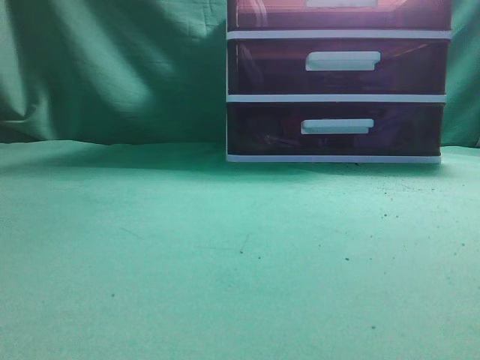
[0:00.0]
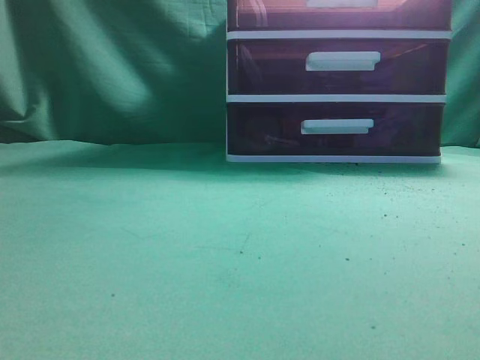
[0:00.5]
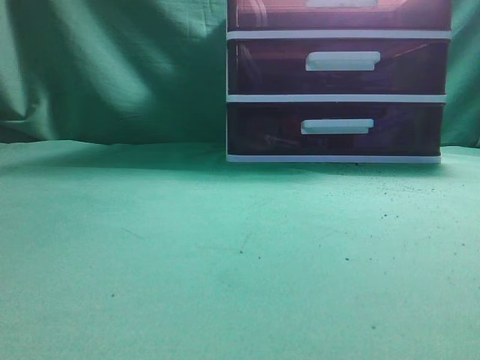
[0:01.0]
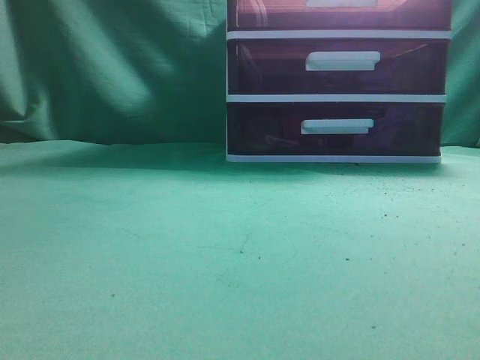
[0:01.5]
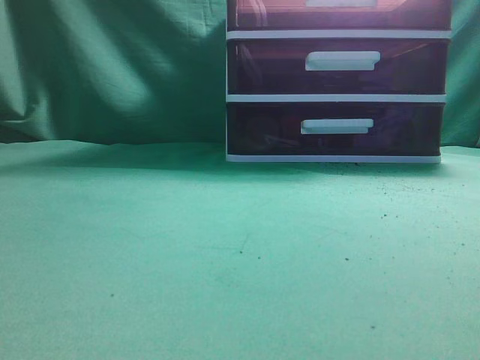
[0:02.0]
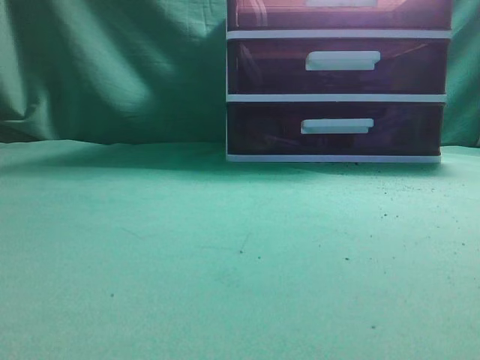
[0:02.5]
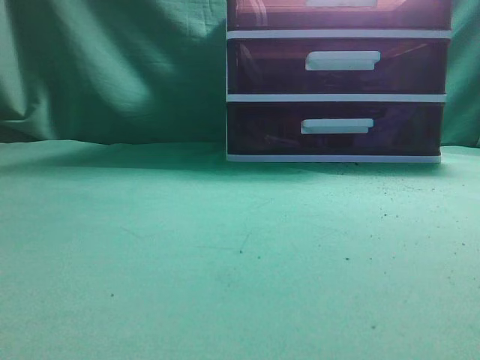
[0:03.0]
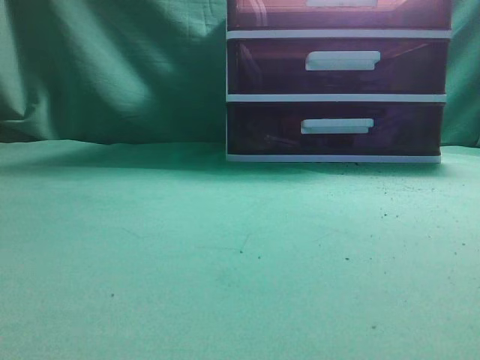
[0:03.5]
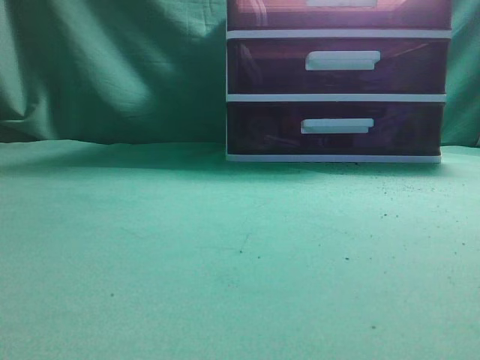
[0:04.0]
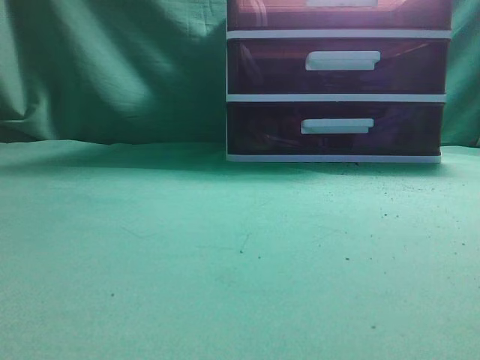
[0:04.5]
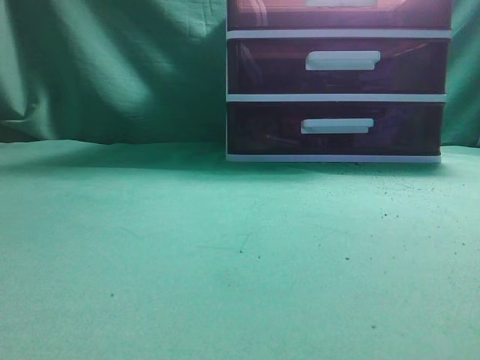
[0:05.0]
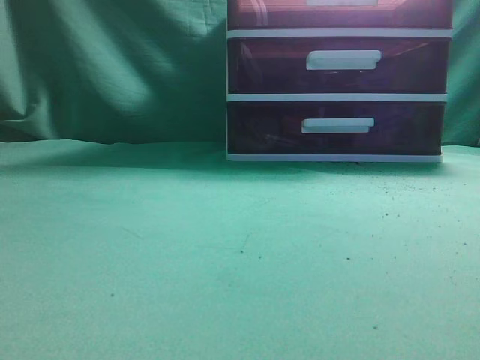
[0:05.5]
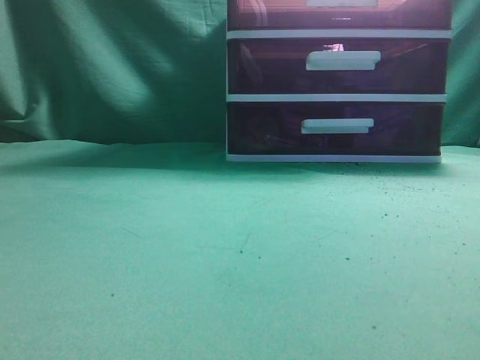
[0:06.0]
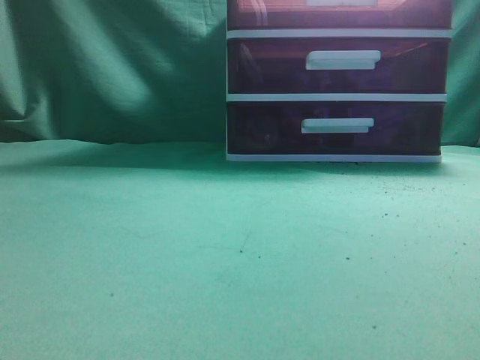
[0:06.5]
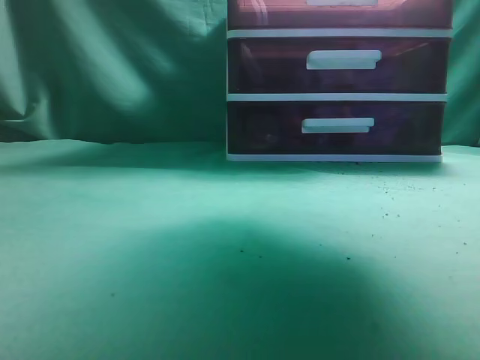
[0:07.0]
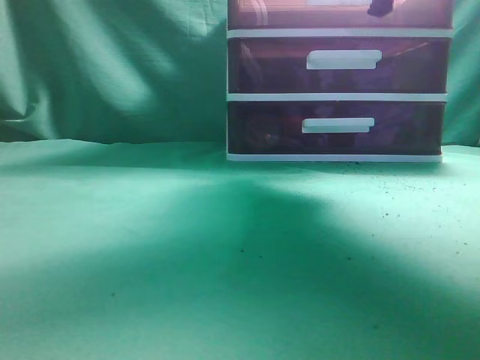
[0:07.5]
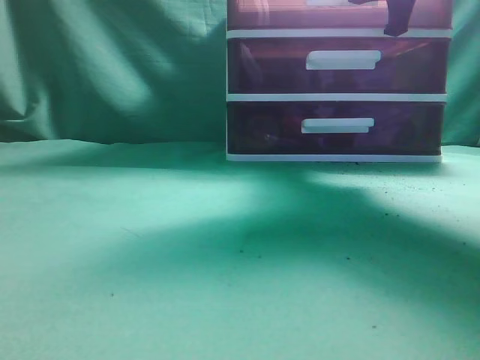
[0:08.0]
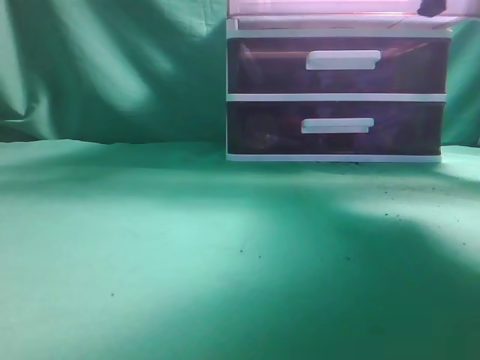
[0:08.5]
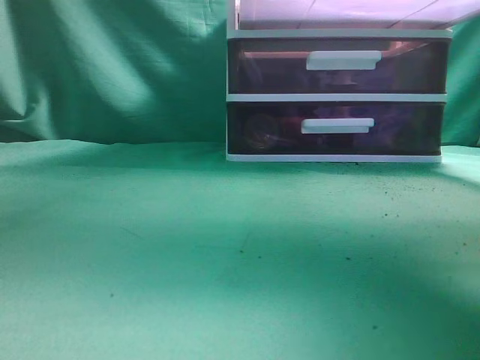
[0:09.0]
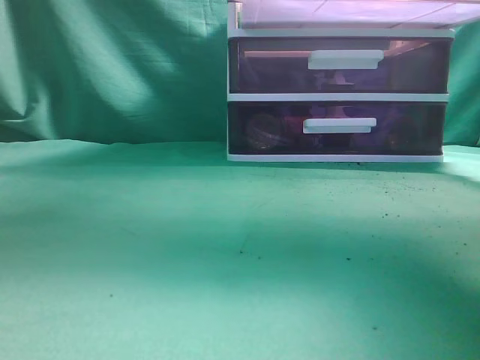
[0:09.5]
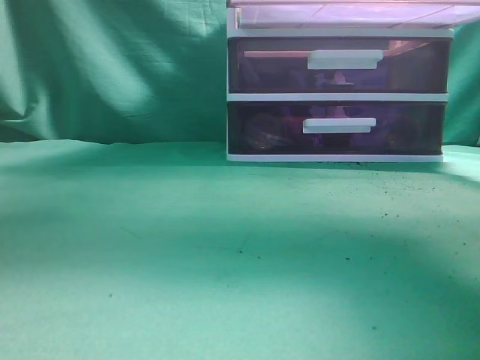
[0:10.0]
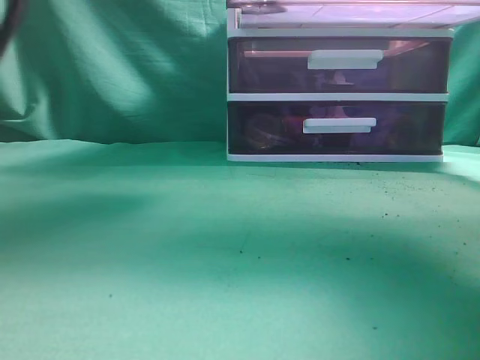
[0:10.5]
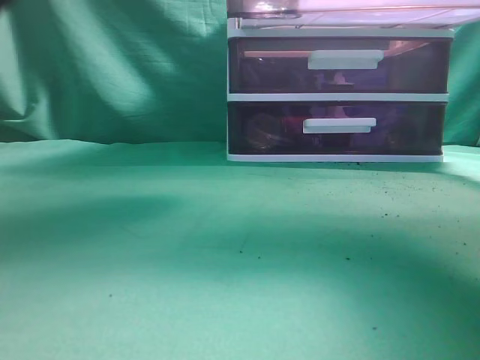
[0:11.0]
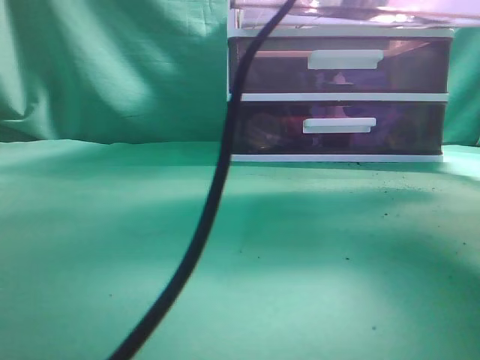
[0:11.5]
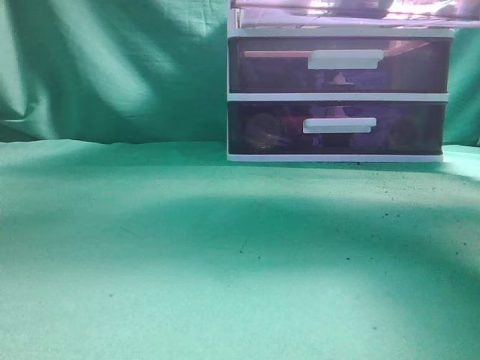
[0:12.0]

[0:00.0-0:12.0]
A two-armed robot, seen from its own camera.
Task of the whole recording: place the water bottle into the drawer.
Step, 0:00.0 to 0:09.0: Open the drawer.
Step, 0:09.5 to 0:11.5: Place the water bottle inside the drawer.
0:06.0 to 0:08.0: The right gripper heads forward, covering roughly 35 cm, and opens, then closes once more.
0:08.0 to 0:10.0: The right gripper travels backward by roughly 15 cm. The left gripper moves to the right and forward, roughly 20 cm.
0:10.0 to 0:12.0: The left gripper reaches some 10 cm to the right, then returns, and closes its fingers.

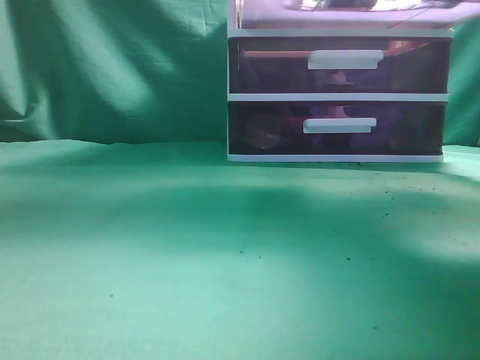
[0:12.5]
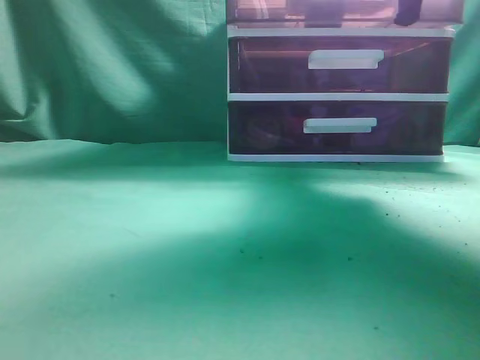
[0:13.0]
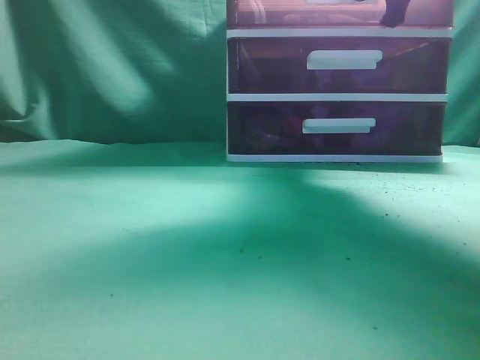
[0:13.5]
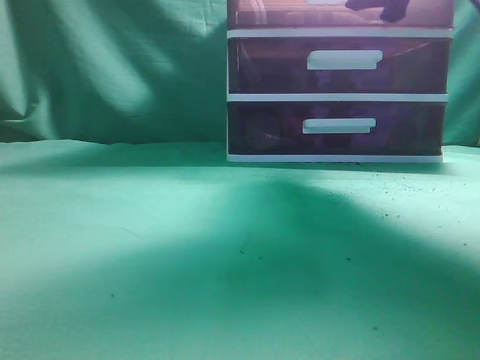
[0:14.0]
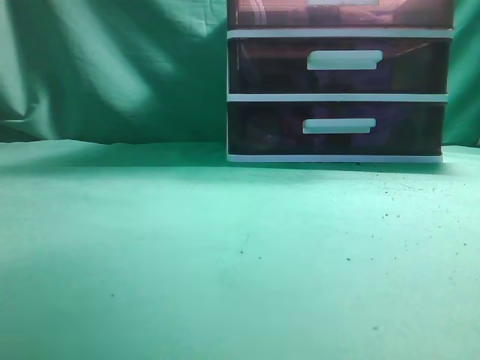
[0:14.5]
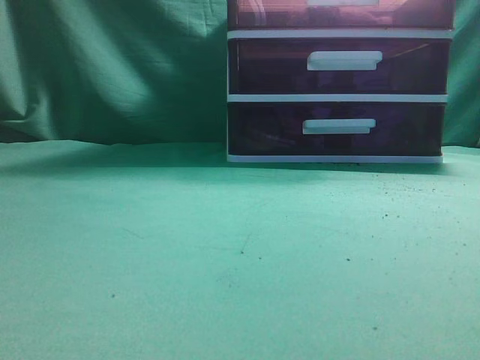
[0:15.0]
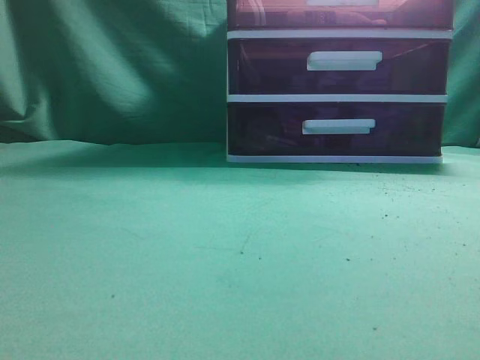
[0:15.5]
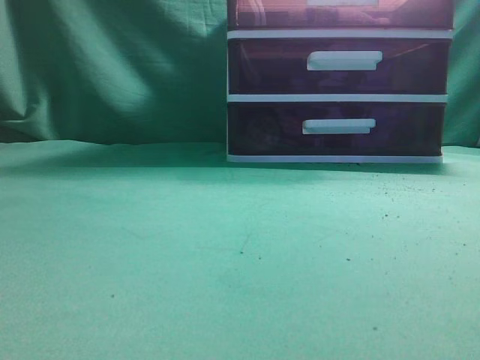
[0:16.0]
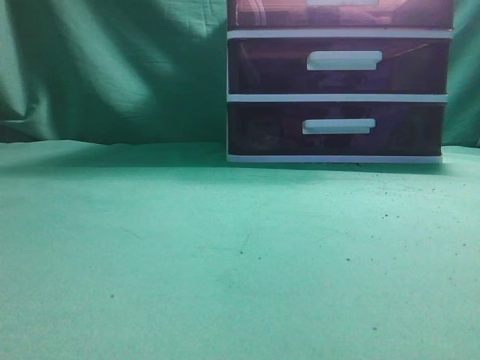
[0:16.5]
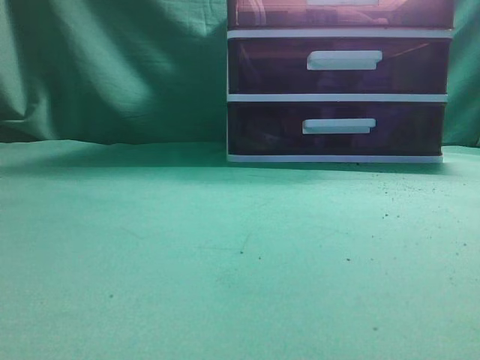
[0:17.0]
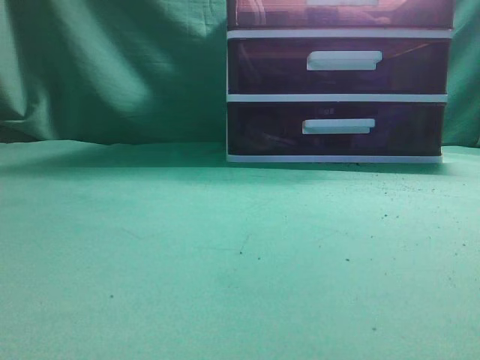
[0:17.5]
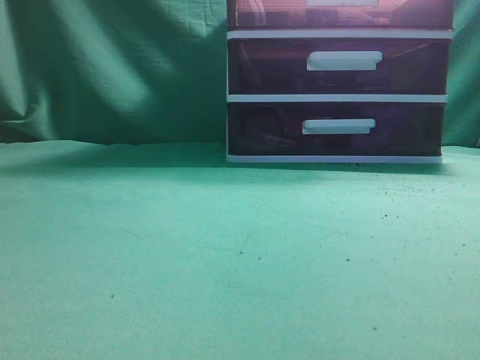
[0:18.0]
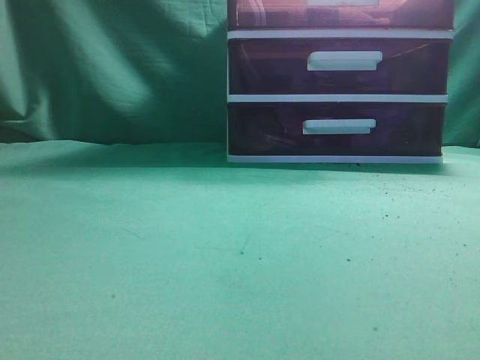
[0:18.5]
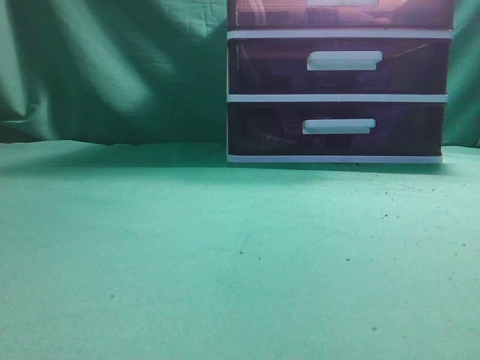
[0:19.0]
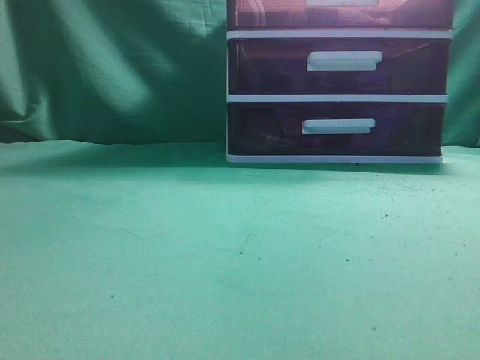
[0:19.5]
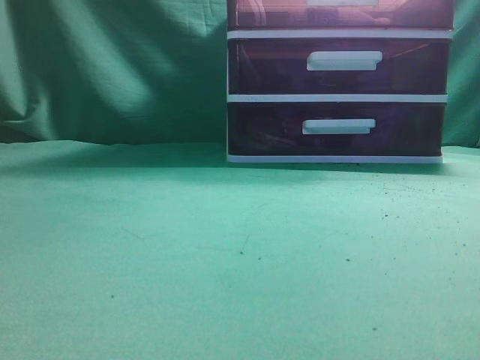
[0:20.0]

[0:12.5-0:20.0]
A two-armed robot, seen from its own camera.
Task of the whole recording: place the water bottle into the drawer.
Step, 0:12.5 to 0:14.0: Close the drawer.
0:12.5 to 0:14.5: The left gripper shifts about 15 cm backward, to the left and downward; the right gripper is displaced upward by roughly 5 cm, moves about 10 cm forward and comes back, and opens and closes again.
0:14.5 to 0:16.5: The right gripper travels backward by approximately 25 cm. The left gripper moves downward, some 15 cm.

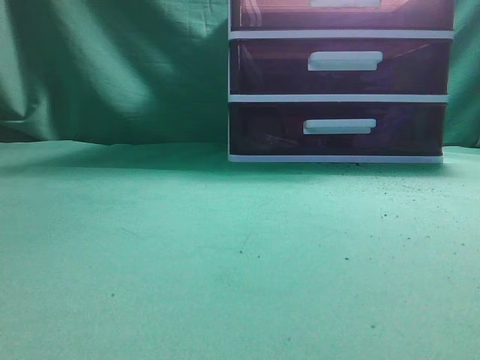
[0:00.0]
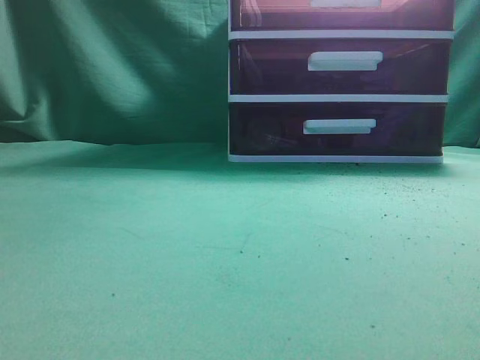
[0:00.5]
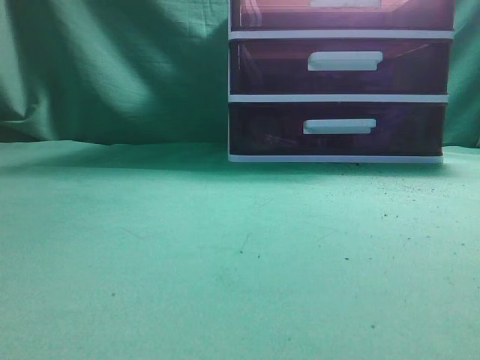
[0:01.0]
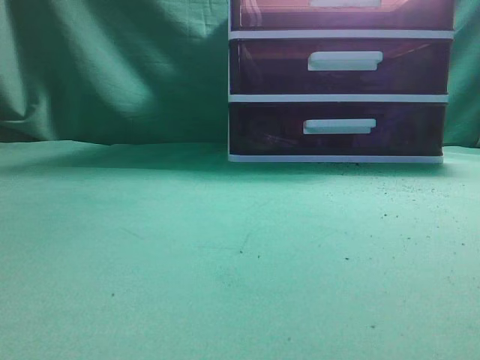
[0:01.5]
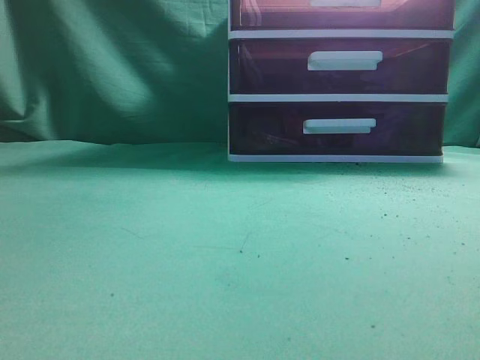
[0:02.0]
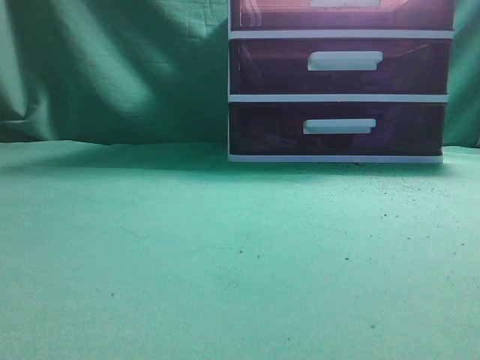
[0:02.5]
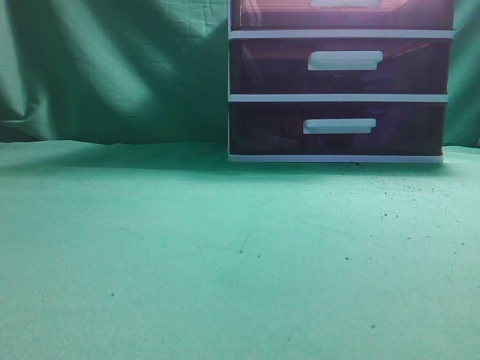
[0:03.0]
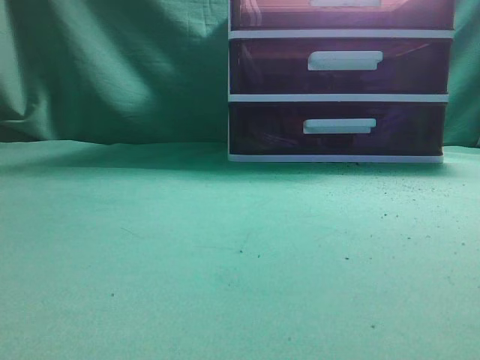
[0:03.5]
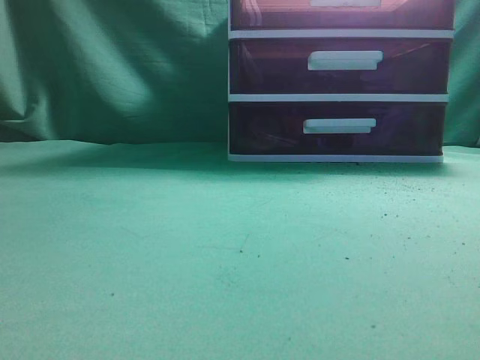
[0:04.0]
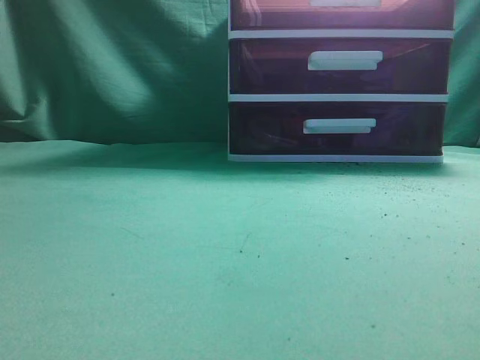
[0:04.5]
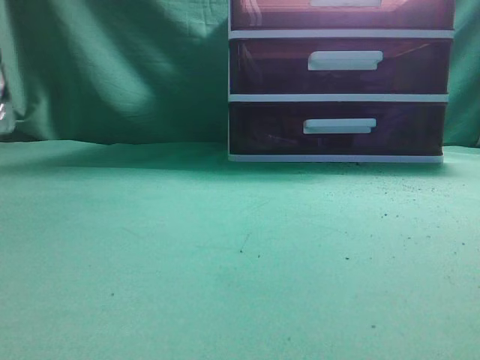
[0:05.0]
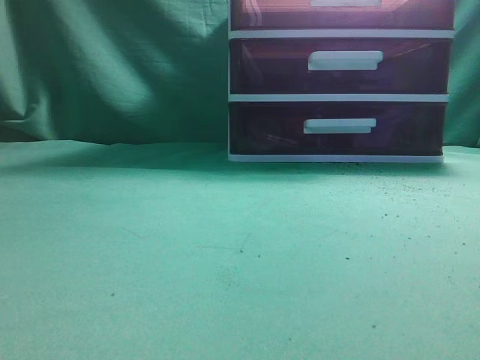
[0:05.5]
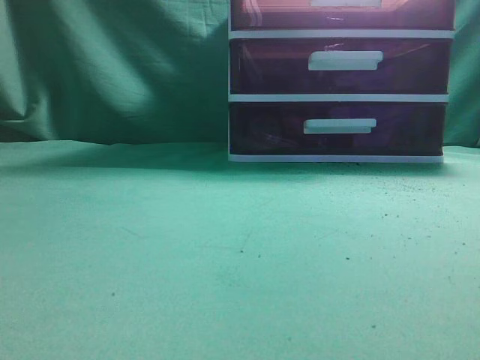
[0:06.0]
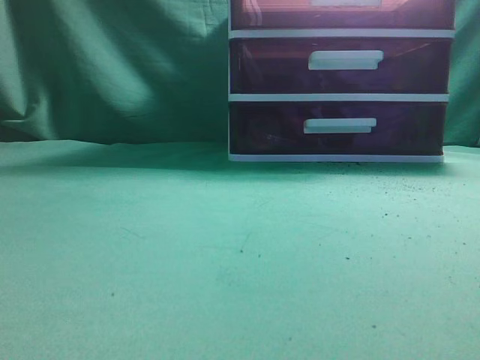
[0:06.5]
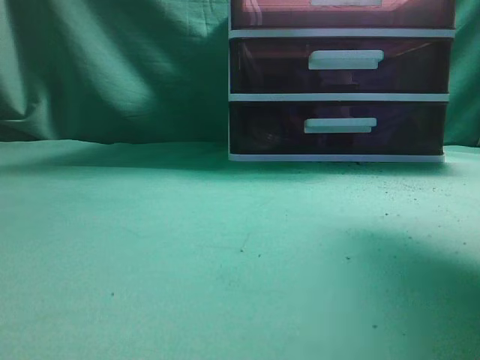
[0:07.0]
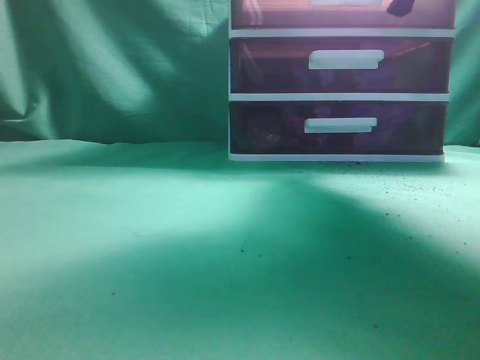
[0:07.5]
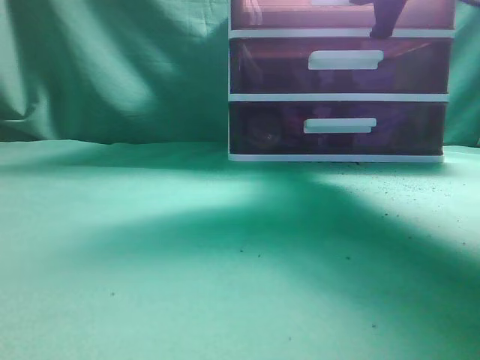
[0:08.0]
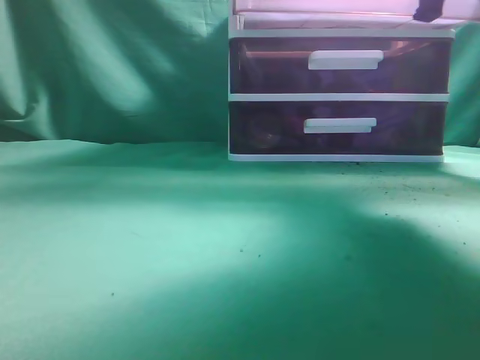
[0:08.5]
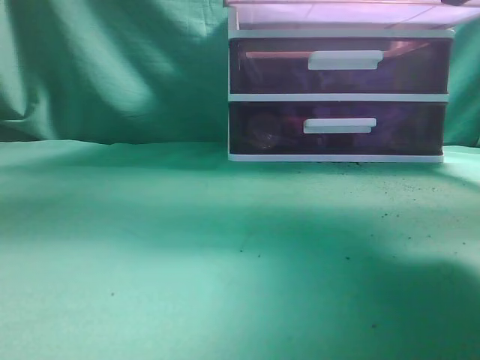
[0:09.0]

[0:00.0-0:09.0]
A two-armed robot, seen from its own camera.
Task of the whole recording: place the water bottle into the drawer.
0:04.5 to 0:07.0: The right gripper moves forward and upward, approximately 25 cm, and opens its fingers. Meanwhile the left gripper heads upward, to the right and backward, covering some 25 cm.
0:07.0 to 0:09.0: The right gripper reaches approximately 15 cm forward, then returns, and closes.
